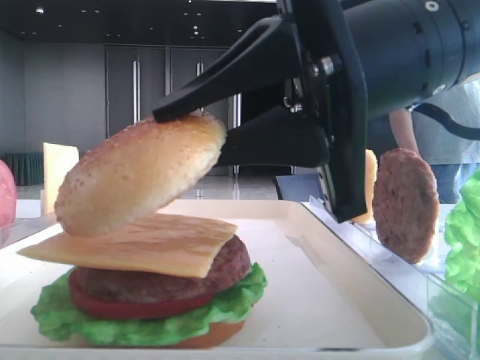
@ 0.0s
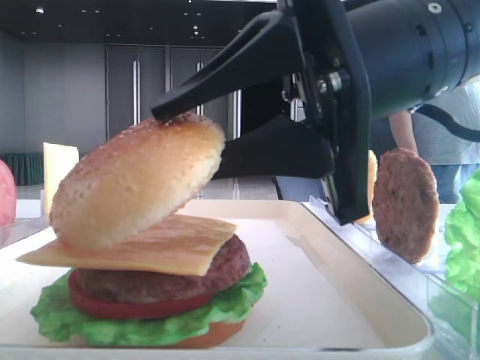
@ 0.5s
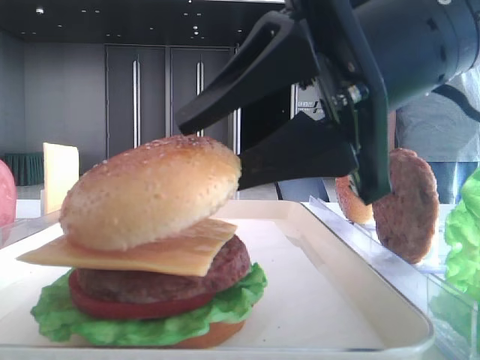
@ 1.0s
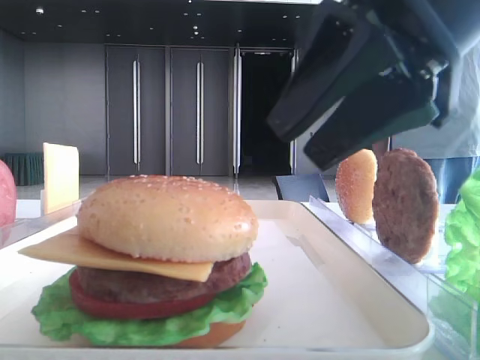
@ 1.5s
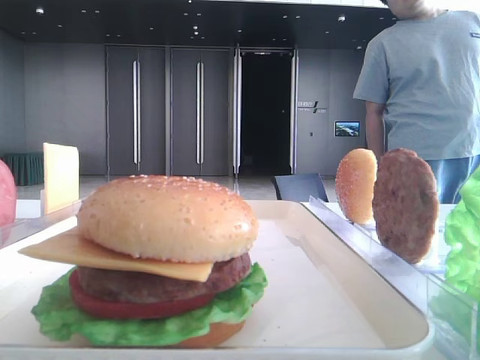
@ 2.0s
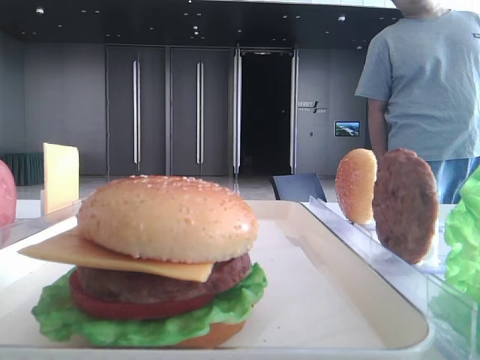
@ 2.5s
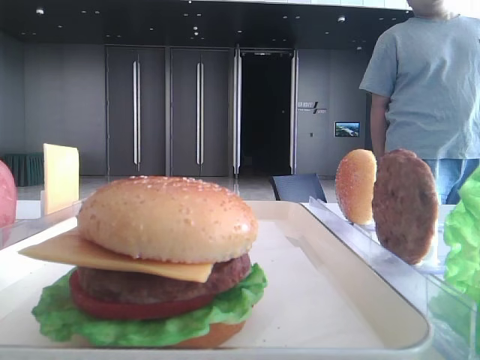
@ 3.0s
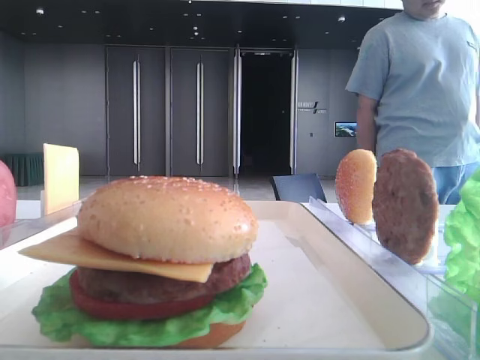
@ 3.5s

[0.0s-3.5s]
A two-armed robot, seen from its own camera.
0.0s to 2.0s: The right gripper goes some 20 cm to the right and upward, and opens up.
2.0s to 3.5s: The right gripper goes about 25 cm backward.

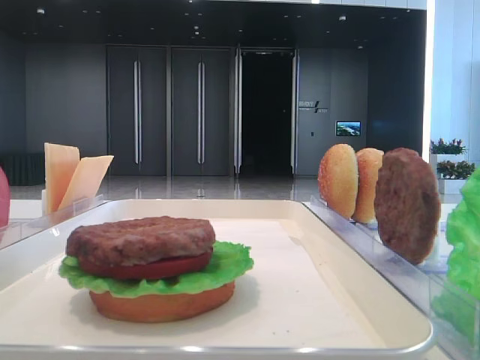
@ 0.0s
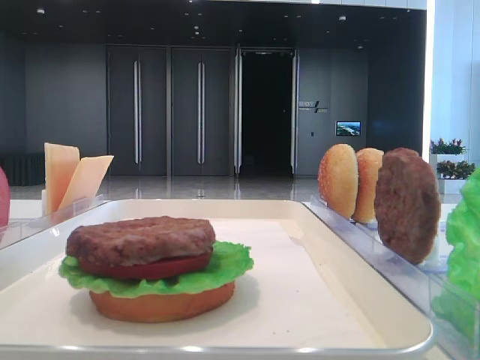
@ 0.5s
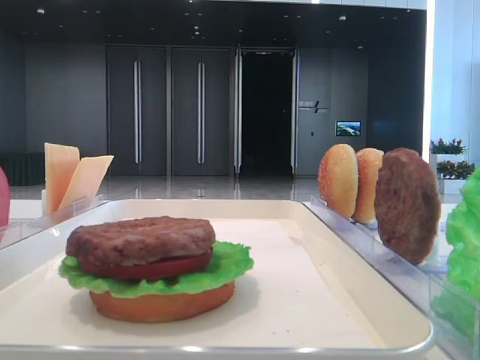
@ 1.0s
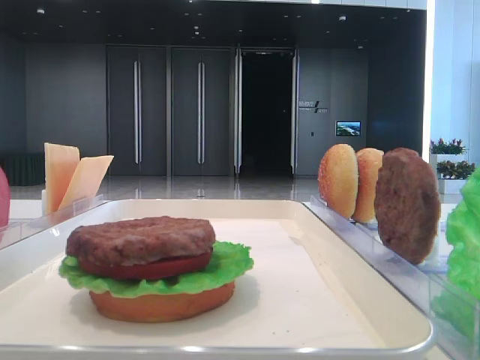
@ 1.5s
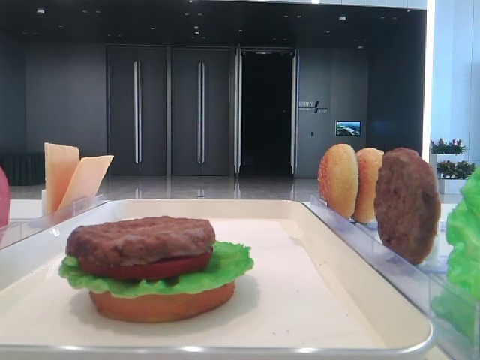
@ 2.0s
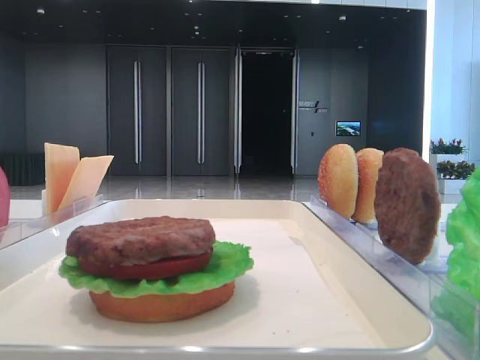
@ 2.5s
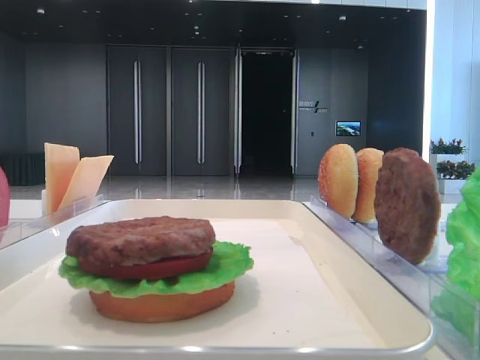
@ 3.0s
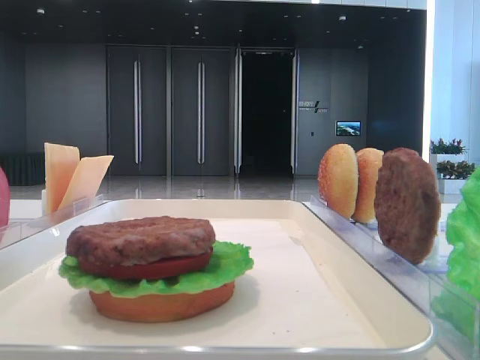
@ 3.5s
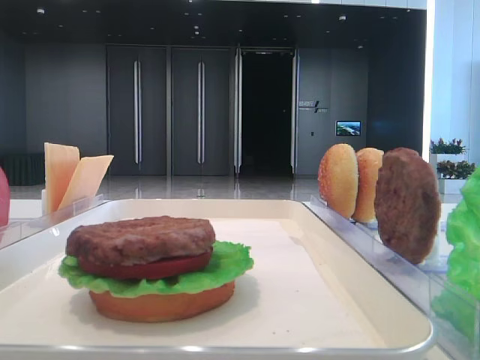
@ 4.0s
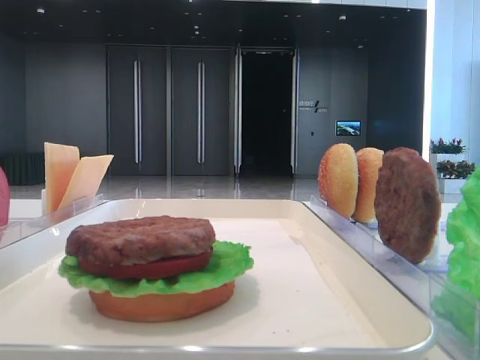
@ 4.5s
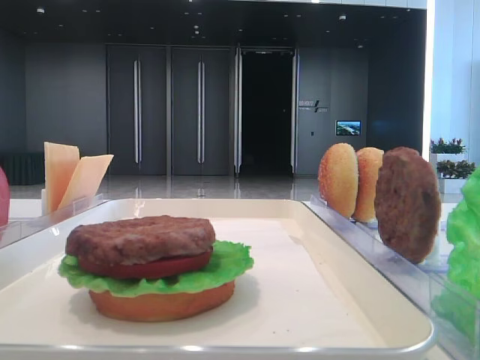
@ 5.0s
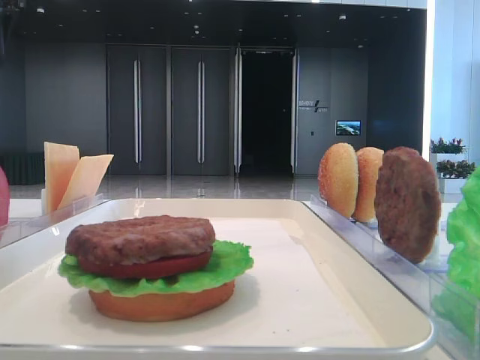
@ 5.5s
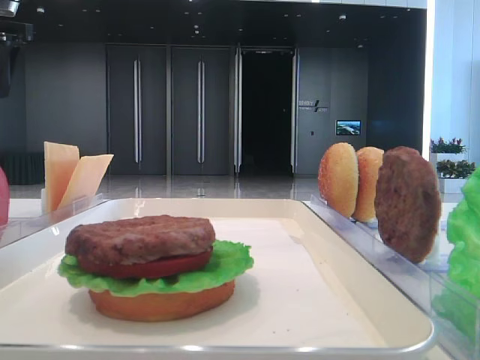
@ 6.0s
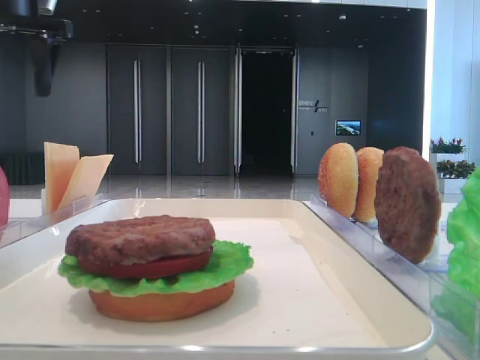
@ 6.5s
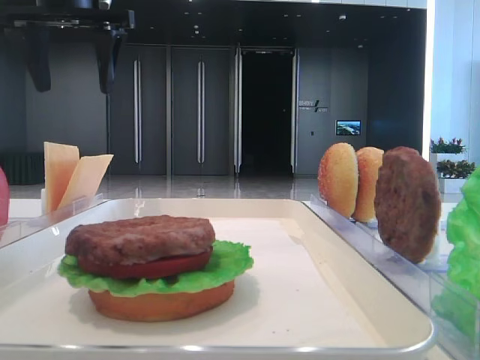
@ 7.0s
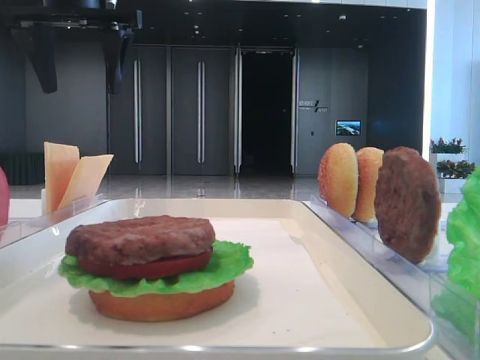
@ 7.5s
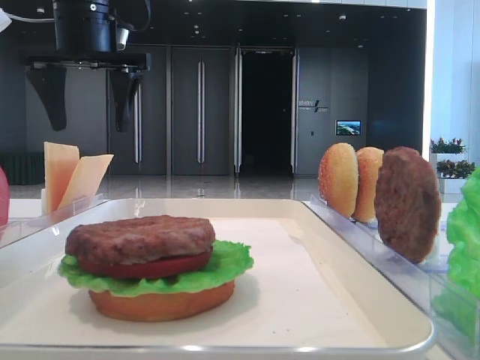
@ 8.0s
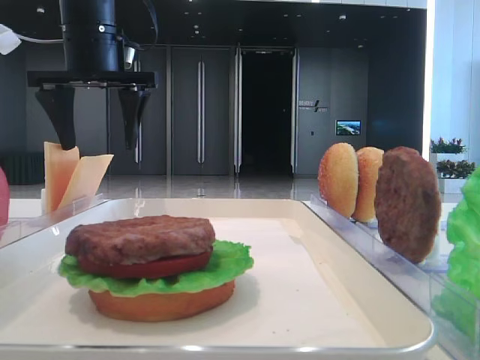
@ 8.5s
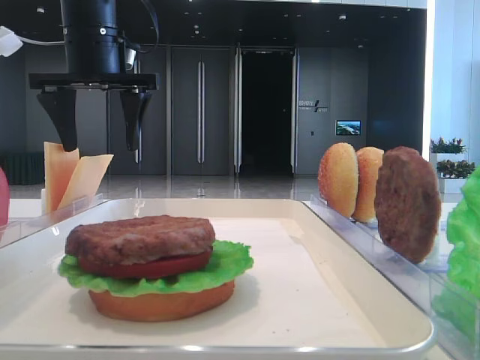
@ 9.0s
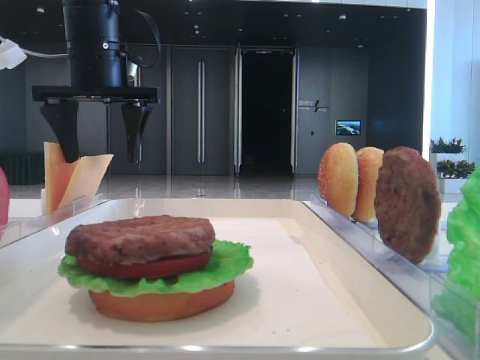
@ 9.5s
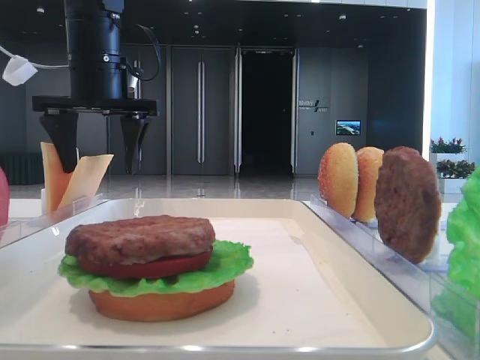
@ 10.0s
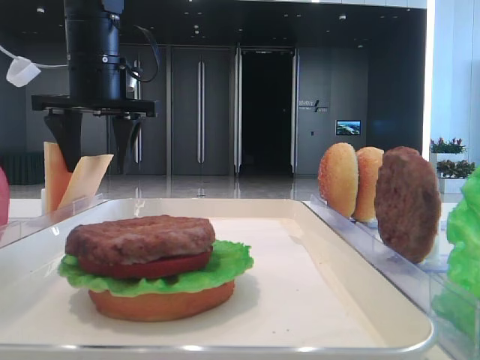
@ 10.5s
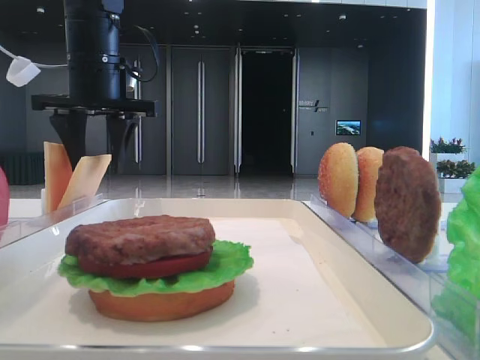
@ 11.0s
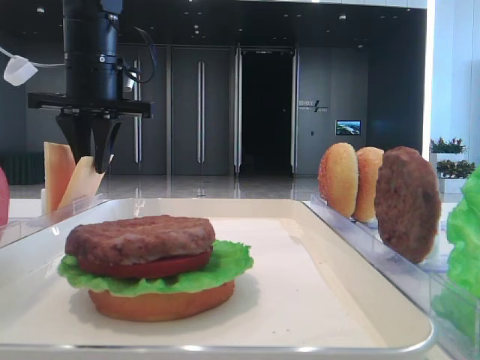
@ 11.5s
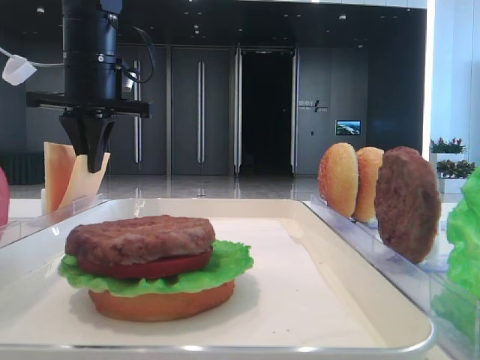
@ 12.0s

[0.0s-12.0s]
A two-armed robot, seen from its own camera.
Step, 0.0s to 12.0s: Pick up the cheese slice with the left hand.
4.0s to 6.0s: The left gripper moves forward, roughly 30 cm.
6.0s to 8.0s: The left gripper shifts approximately 15 cm to the right.
8.0s to 10.0s: The left gripper changes place by about 5 cm.
10.0s to 12.0s: The left gripper closes up.

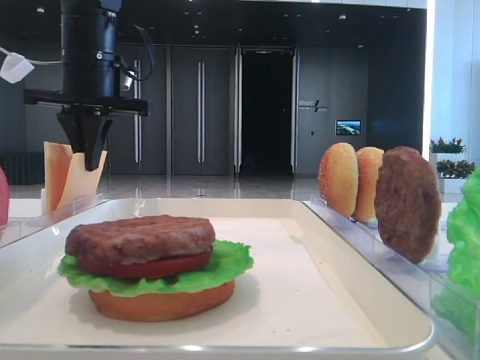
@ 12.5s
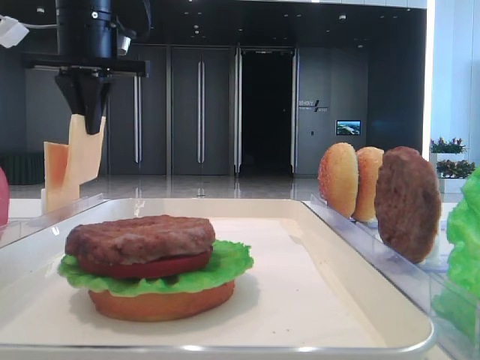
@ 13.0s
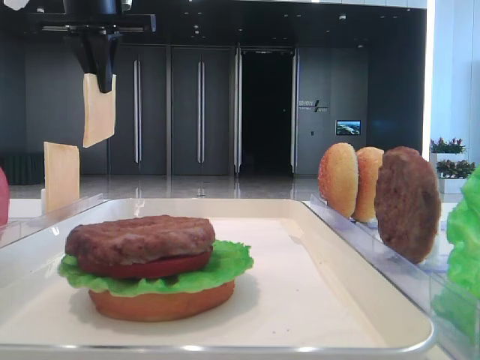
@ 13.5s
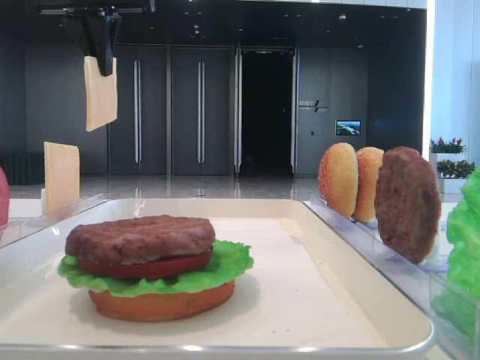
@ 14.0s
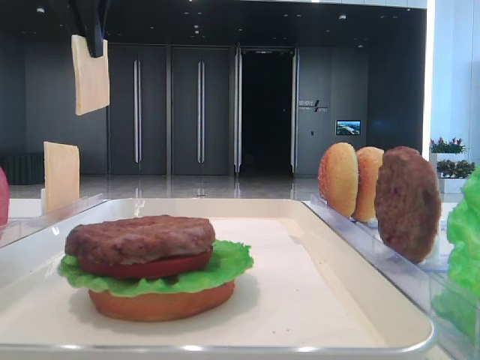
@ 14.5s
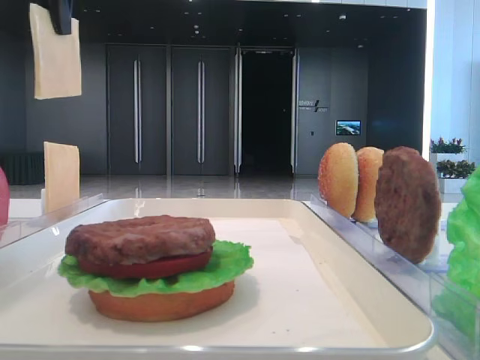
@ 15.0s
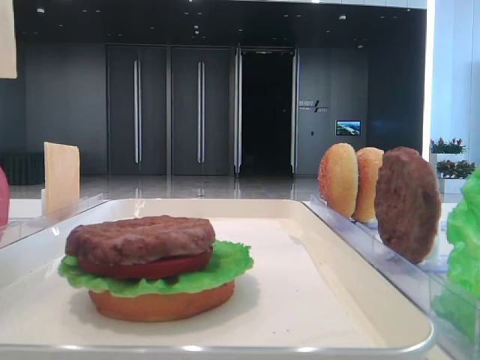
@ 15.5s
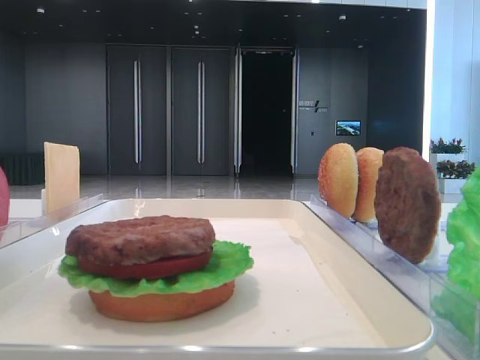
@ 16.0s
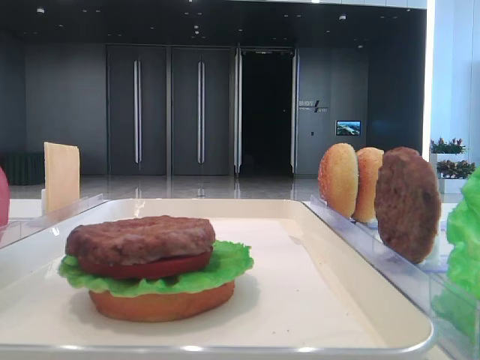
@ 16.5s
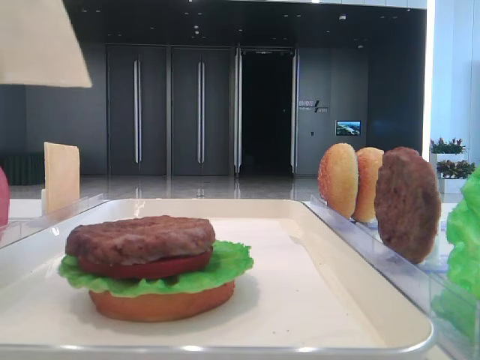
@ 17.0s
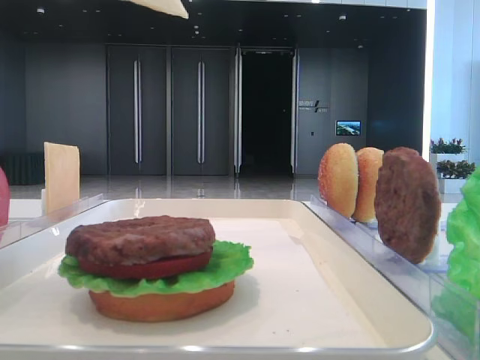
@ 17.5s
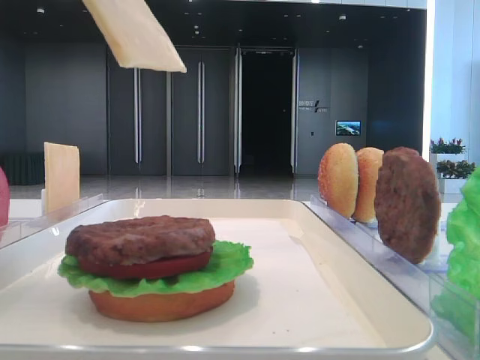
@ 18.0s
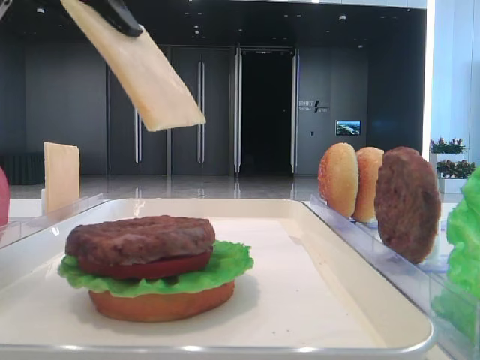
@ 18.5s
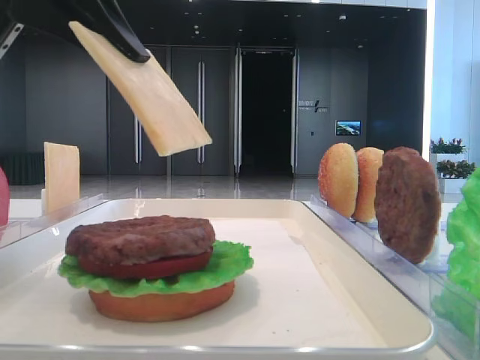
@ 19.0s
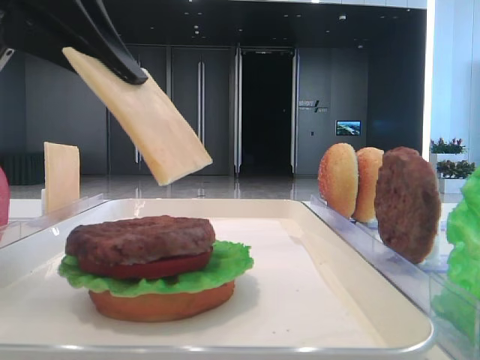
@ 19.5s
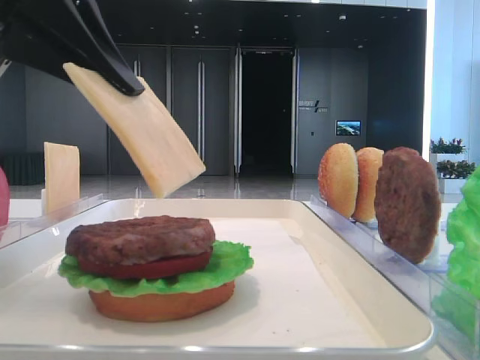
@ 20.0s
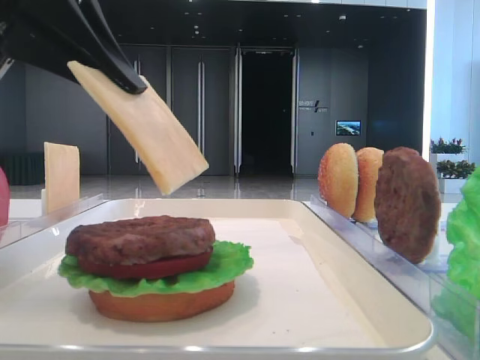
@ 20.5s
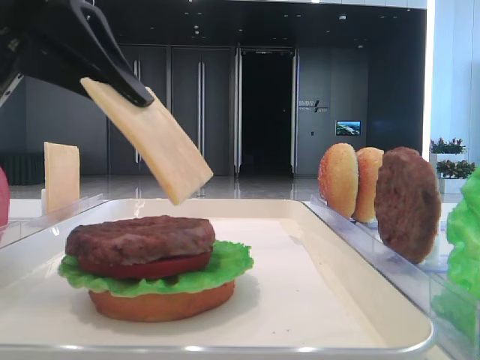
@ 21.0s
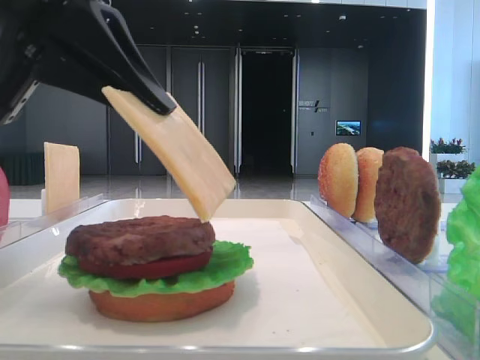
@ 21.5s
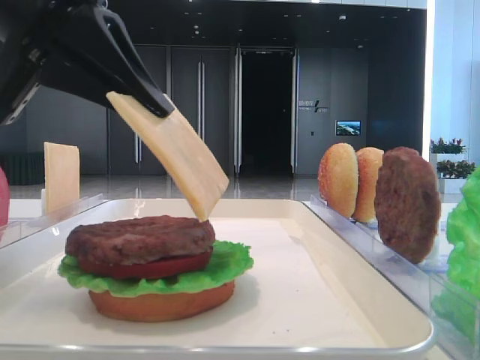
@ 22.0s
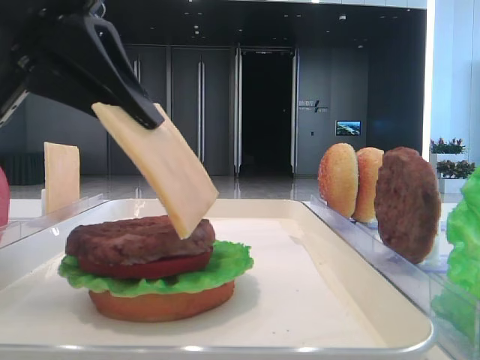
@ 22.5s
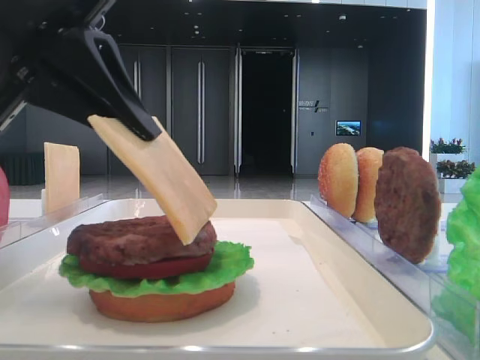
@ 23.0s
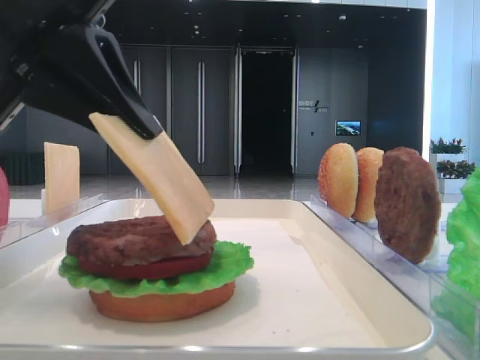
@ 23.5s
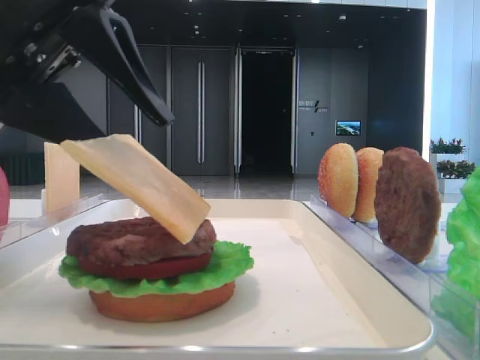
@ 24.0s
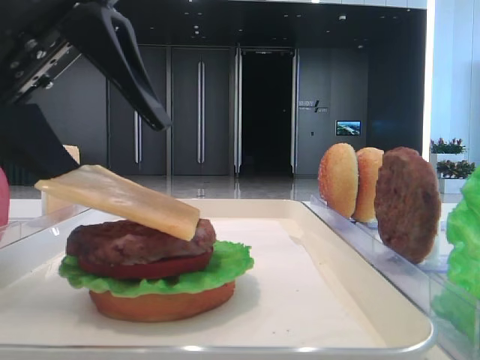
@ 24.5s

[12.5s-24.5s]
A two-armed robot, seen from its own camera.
12.5s to 14.5s: The left gripper travels upward by about 15 cm.
14.5s to 16.5s: The left gripper shifts some 15 cm backward.
16.5s to 18.5s: The left gripper is displaced downward and to the right by about 10 cm.
18.5s to 22.5s: The grippers stay close to where they were, moving slightly.
22.5s to 24.5s: The left gripper opens.
